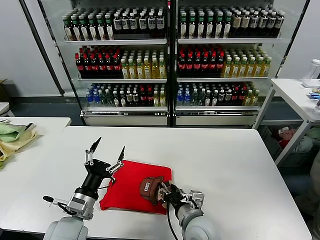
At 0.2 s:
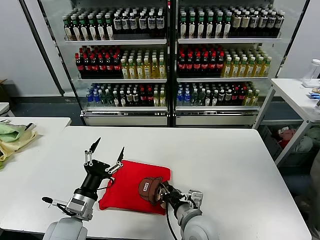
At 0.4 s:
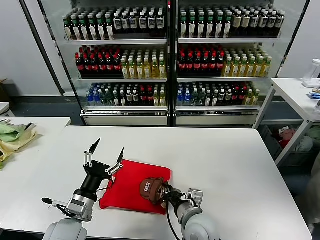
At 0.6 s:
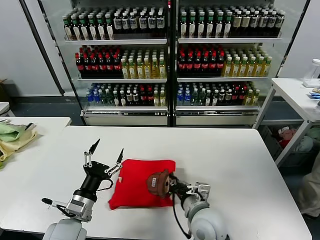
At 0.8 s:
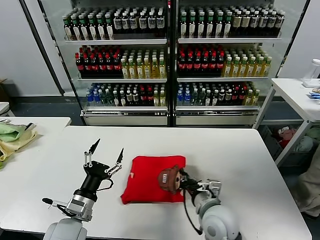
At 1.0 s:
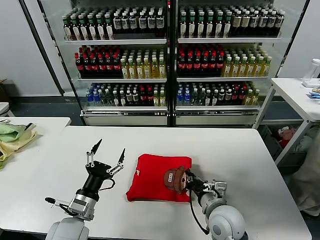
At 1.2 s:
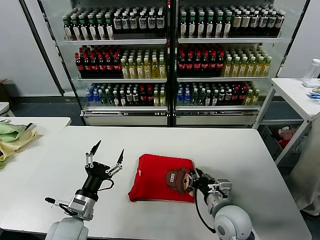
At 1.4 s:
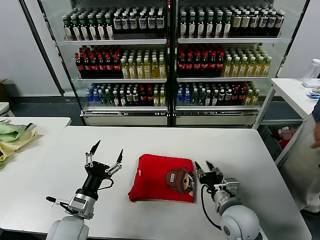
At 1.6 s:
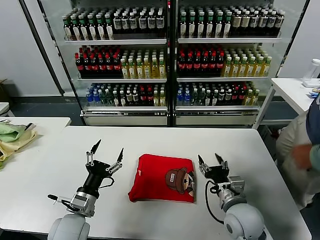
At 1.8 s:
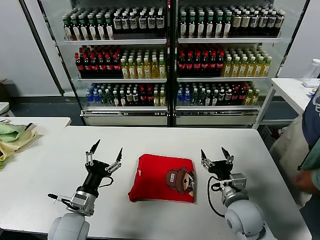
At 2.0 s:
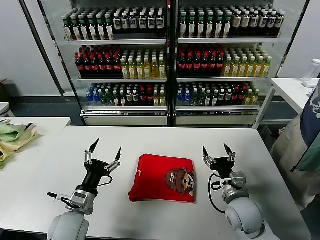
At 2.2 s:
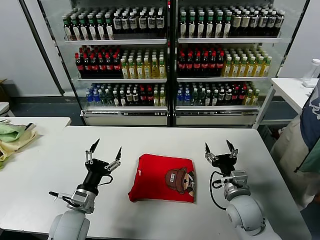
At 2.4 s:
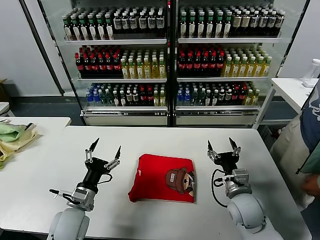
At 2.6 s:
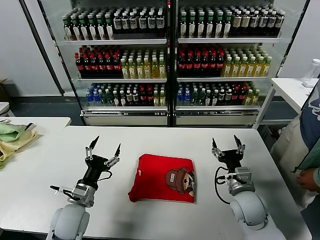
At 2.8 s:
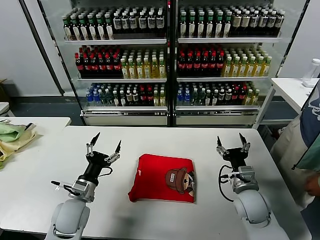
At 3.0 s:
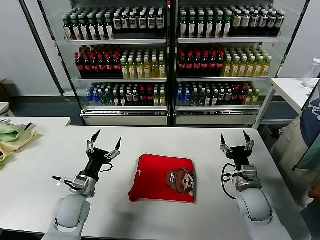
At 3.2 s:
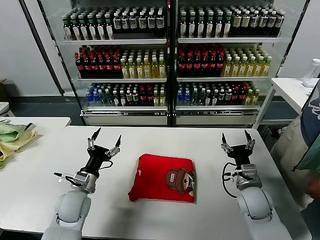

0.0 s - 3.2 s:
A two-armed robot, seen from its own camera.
Task of the whole recording: fold and organize the clothes.
0.0 s - 1.6 s: The right gripper moves to the right, some 10 cm, and closes, then reopens.
1.6 s - 3.2 s: The left gripper heads forward, covering approximately 10 cm. Meanwhile the right gripper shifts roughly 10 cm to the right and forward.

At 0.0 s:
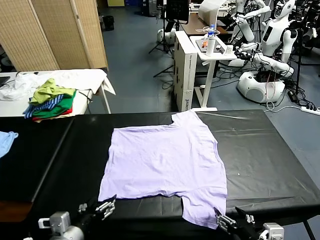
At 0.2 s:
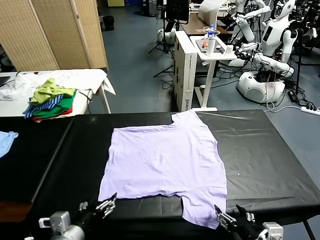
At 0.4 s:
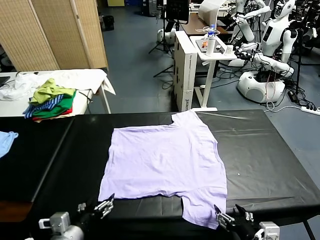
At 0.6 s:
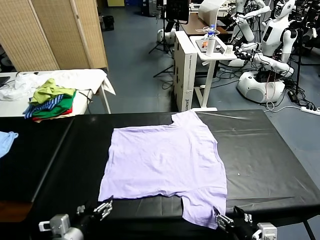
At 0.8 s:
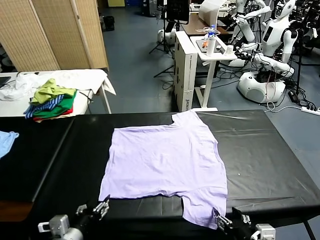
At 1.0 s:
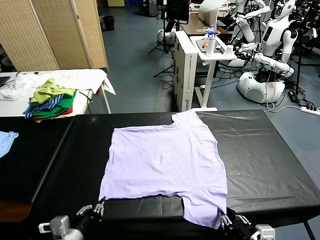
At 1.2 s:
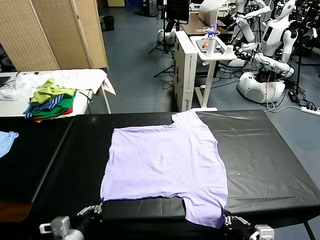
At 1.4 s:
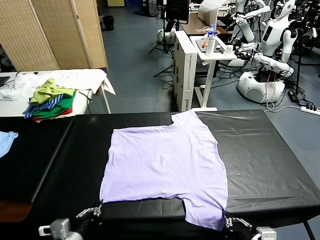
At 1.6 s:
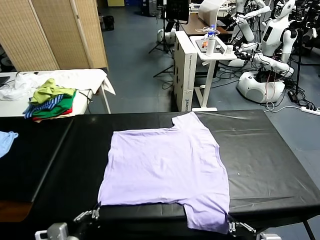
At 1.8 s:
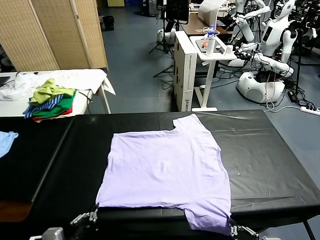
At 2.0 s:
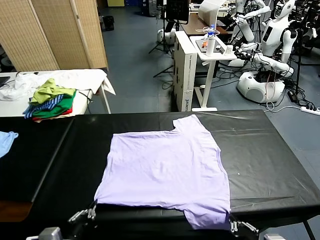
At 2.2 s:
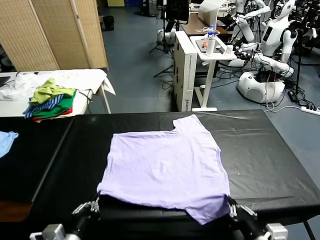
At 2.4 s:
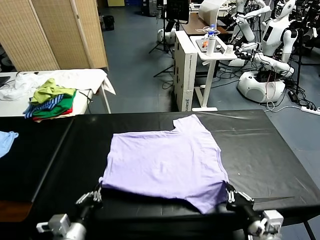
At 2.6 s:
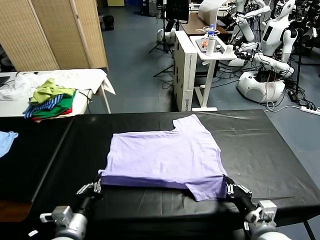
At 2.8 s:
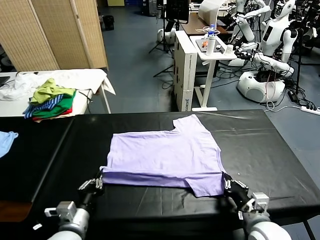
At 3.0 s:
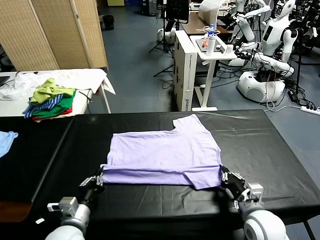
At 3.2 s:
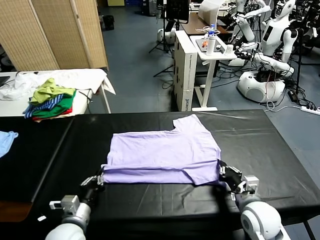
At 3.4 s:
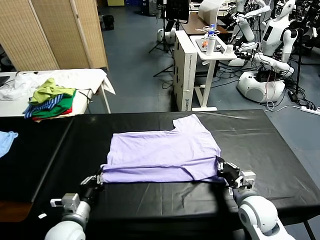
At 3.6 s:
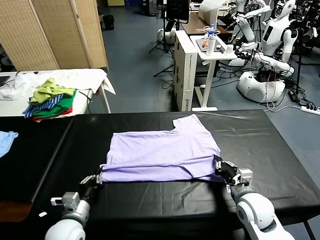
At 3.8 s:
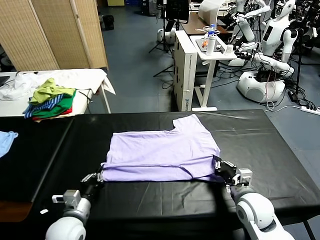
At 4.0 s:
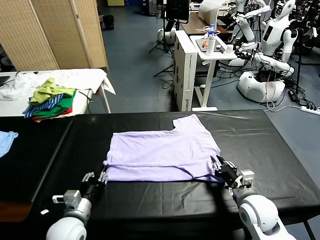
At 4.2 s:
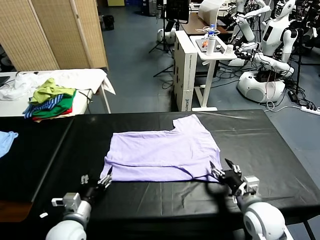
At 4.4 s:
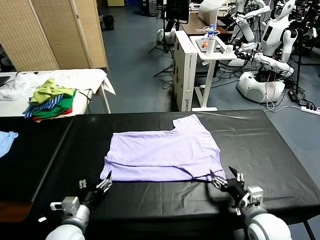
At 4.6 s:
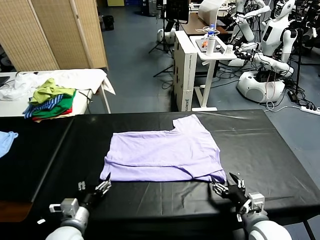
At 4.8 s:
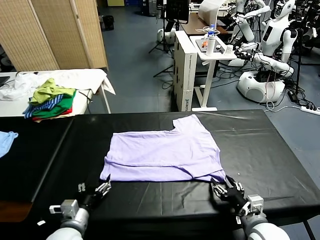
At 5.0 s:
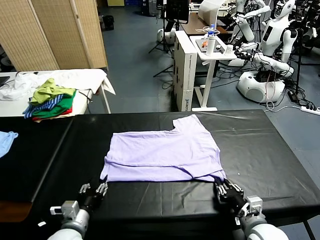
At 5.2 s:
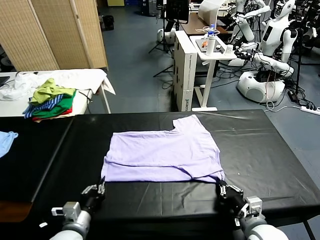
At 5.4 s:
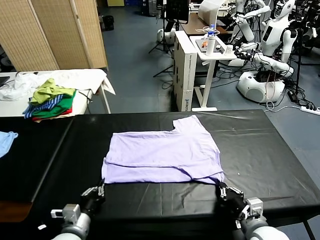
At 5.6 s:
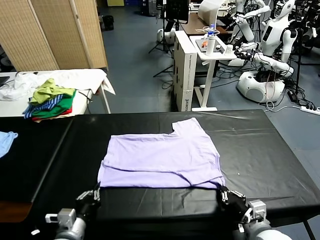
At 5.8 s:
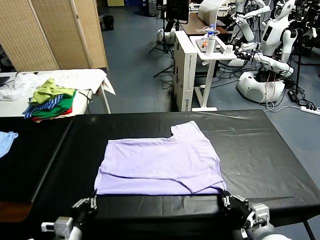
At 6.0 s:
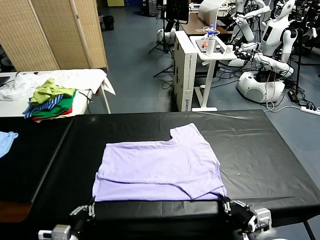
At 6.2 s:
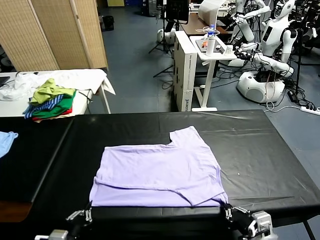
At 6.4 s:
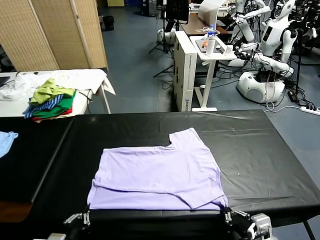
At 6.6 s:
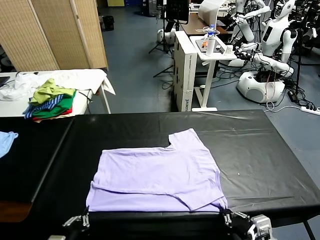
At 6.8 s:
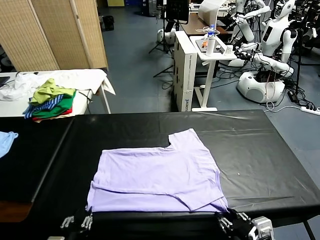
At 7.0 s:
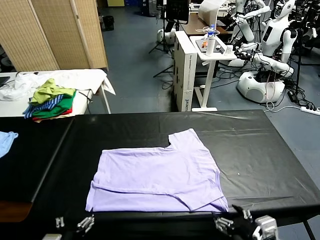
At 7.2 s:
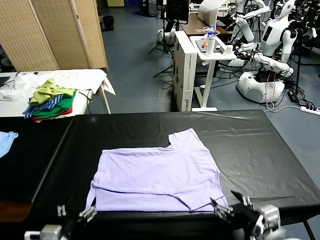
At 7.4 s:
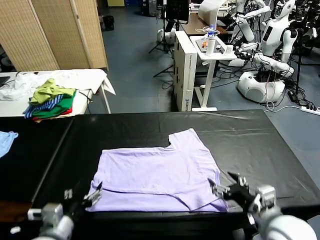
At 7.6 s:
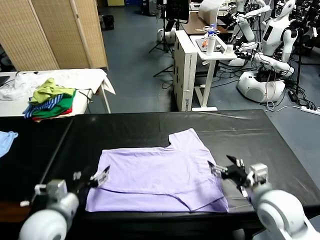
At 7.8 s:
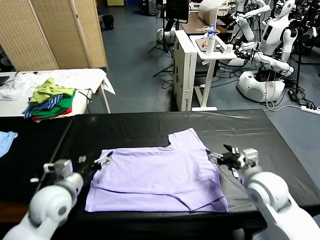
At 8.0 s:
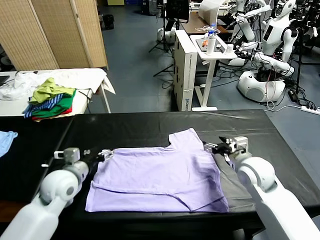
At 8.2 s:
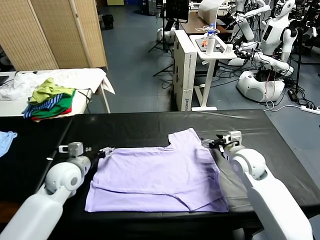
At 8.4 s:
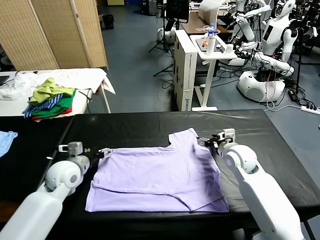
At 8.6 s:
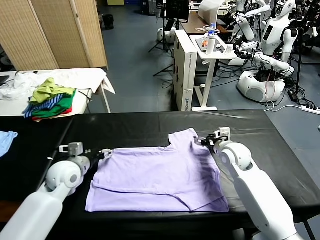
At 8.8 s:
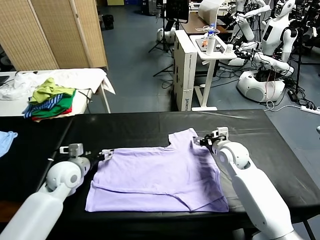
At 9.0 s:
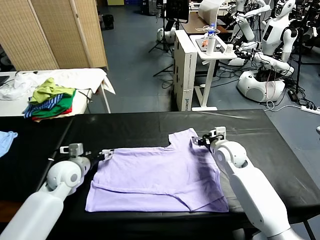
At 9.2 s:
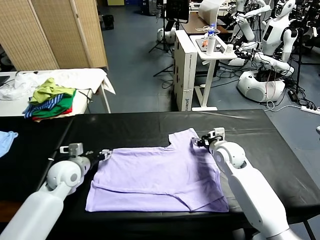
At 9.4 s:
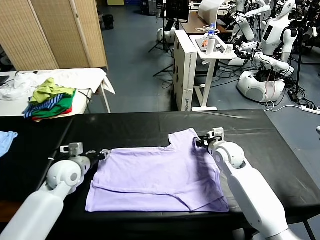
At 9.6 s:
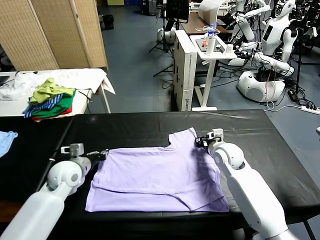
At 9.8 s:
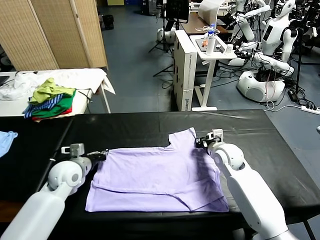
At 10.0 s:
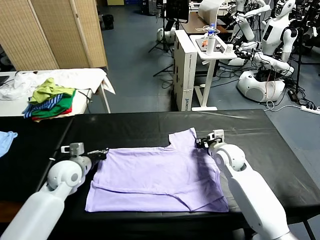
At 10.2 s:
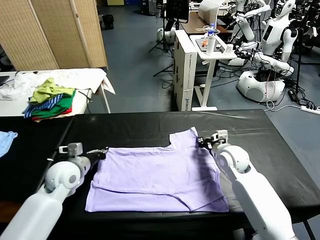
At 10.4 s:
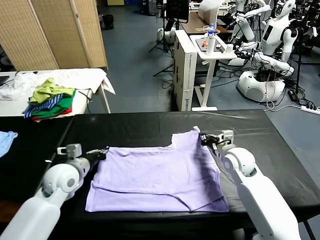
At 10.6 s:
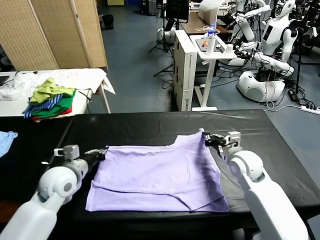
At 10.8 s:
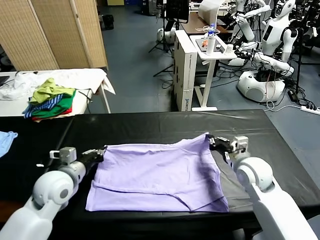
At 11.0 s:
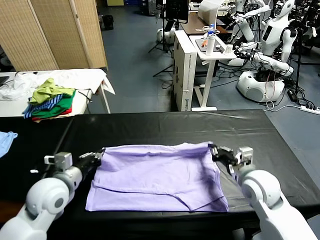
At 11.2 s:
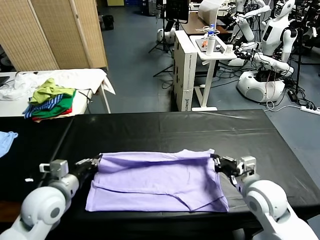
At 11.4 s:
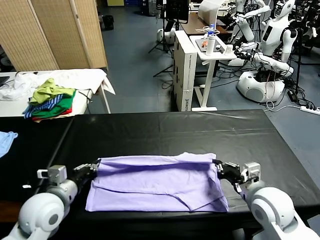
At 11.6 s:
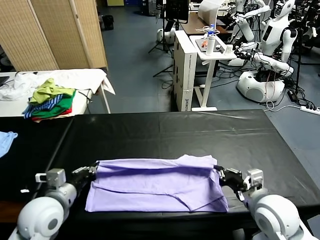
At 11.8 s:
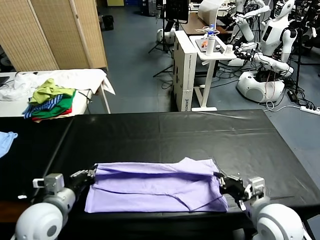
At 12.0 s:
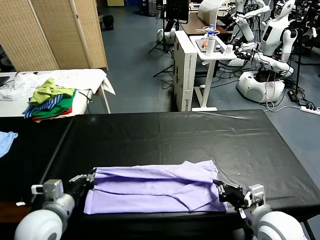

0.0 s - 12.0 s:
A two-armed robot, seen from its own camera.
Task of the whole recording: fold and organize the clothes.
Step, 0.0 s - 1.4 s: use both grippers simultaneously to clamp the lower edge of the clothing fabric.
Step, 1.8 s - 4.0 s: use both grippers to drag the lower edge of the fabric forward and fold it over the upper edge.
Step, 4.2 s - 6.8 s: Drag the clothes downward with both gripper.
Step, 7.2 s - 10.0 s: use both grippers simultaneously to clamp the upper edge of the clothing fabric.
1.6 s - 3.0 s: The right gripper shifts approximately 20 cm forward. Meanwhile the left gripper goes about 10 cm forward.
3.0 s - 4.4 s: The left gripper opens up. The right gripper moves backward, roughly 5 cm, and opens its fingers.
4.4 s - 6.0 s: Both grippers move backward, some 5 cm. The left gripper closes its fingers, while the right gripper closes up.
6.0 s - 7.6 s: The left gripper is displaced forward and upward by approximately 15 cm, and opens its fingers; the right gripper moves forward, roughly 20 cm, and opens.
7.6 s - 9.0 s: The right gripper shifts approximately 15 cm forward and downward, and closes up. The left gripper shifts some 15 cm forward.
9.0 s - 10.4 s: The right gripper heads backward, covering roughly 5 cm, and closes up. The left gripper closes its fingers.
10.4 s - 12.0 s: Both grippers move backward, approximately 15 cm.

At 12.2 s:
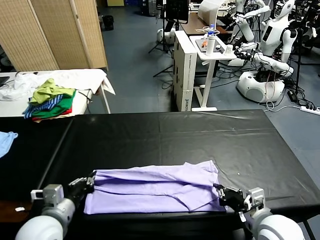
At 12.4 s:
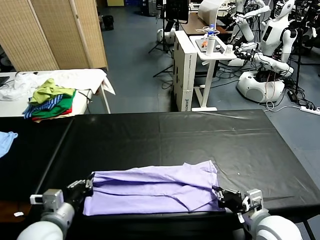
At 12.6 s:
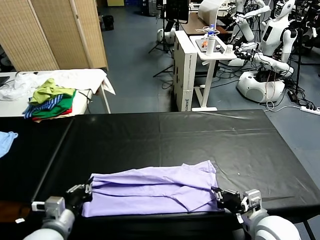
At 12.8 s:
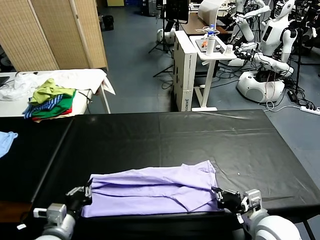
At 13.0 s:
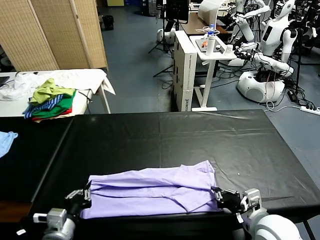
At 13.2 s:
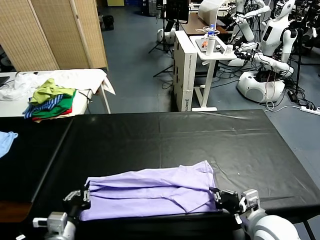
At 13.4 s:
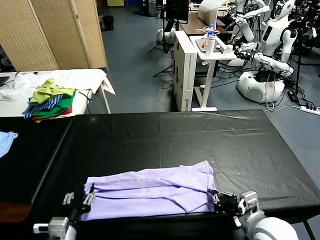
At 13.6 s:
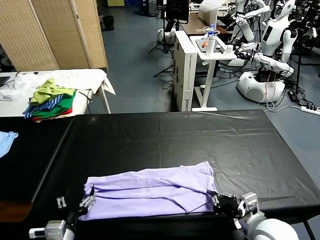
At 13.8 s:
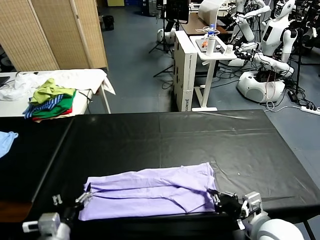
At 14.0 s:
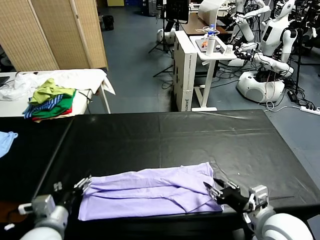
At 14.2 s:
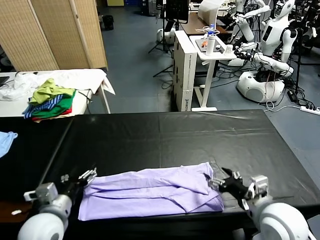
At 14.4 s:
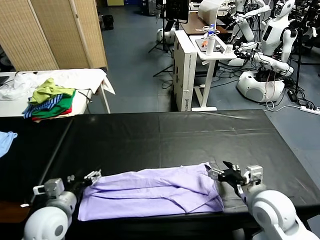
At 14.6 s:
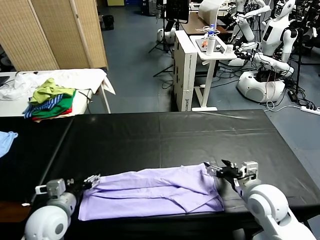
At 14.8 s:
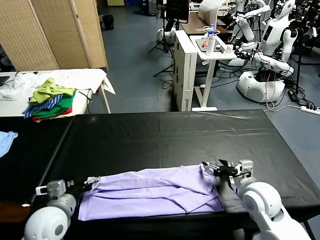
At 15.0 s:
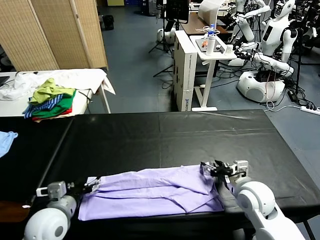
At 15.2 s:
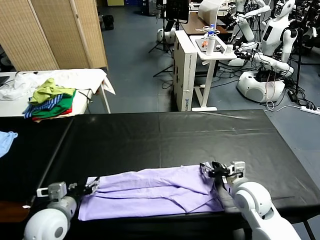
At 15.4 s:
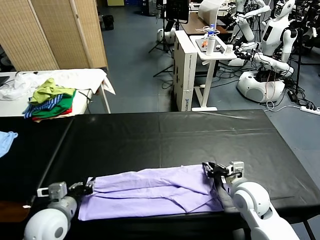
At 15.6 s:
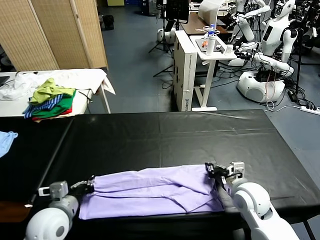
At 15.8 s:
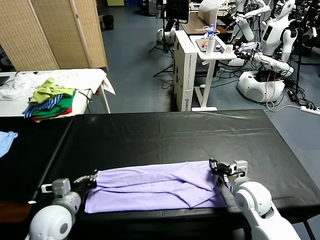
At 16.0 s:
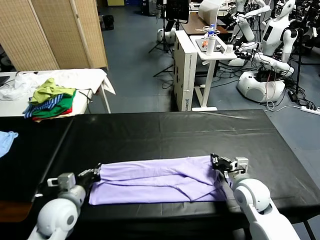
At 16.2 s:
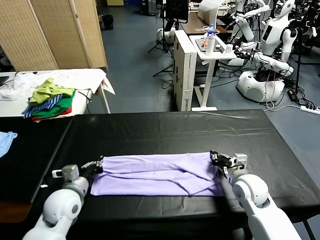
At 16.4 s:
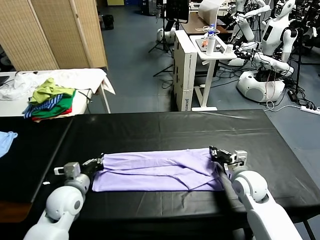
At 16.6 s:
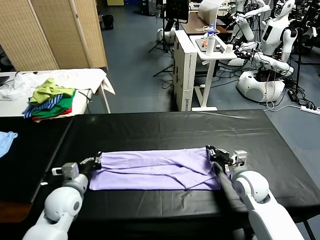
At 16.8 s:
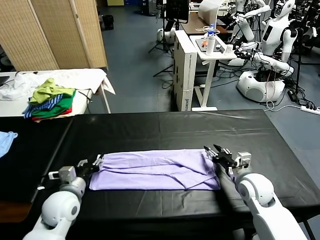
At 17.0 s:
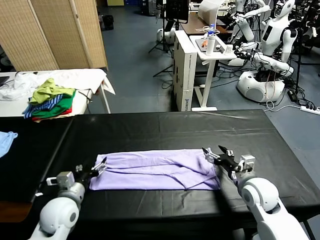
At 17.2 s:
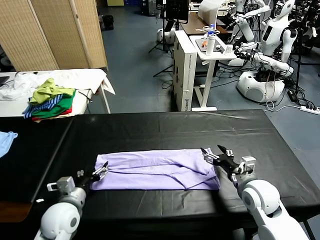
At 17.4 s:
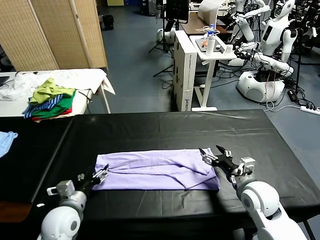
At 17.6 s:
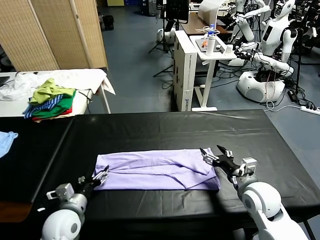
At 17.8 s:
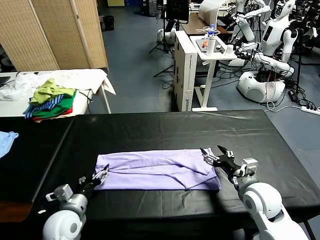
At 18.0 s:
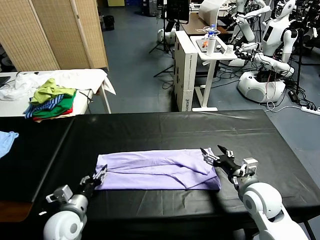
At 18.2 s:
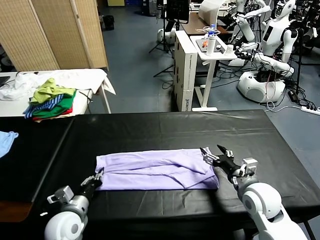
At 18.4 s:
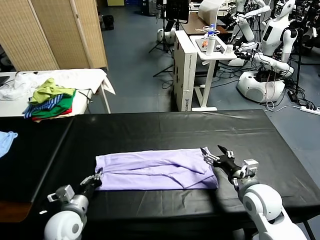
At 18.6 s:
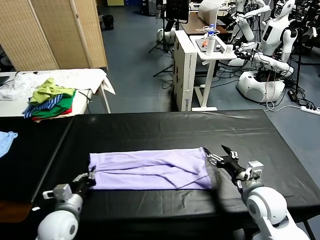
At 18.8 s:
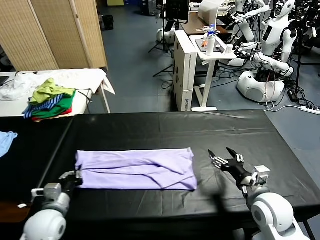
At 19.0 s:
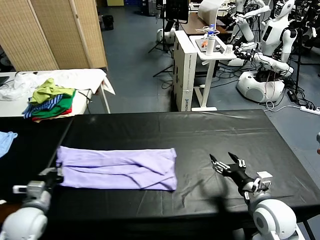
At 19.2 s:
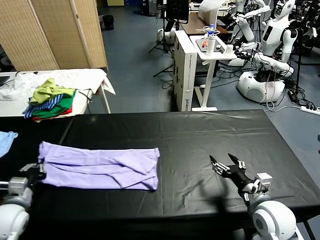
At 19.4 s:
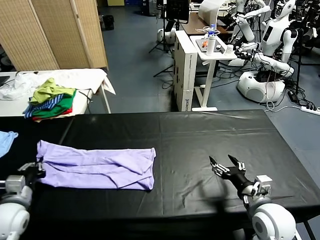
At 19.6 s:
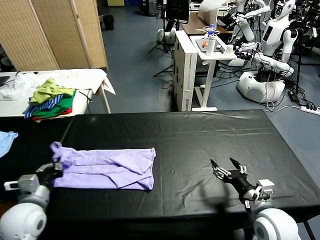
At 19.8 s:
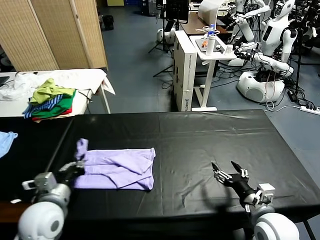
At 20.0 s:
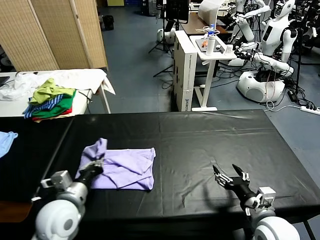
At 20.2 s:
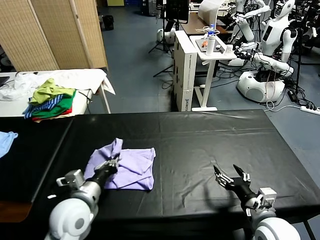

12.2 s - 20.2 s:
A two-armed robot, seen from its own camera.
Task of the whole recording: fold and organize the clothes.
Step, 14.2 s - 18.8 s: use the left gripper to clamp the left edge of the fabric.
12.2 s - 13.8 s: The right gripper opens up; the left gripper opens its fingers.
13.8 s - 15.4 s: The left gripper goes approximately 10 cm forward, and closes up; the right gripper heads forward and downward, covering approximately 15 cm, and closes up.
15.4 s - 17.0 s: The left gripper opens its fingers; the right gripper opens its fingers.
17.0 s - 18.6 s: The left gripper closes.
18.6 s - 20.2 s: The right gripper is displaced backward by roughly 5 cm, while the left gripper goes roughly 5 cm upward, and moves approximately 15 cm to the left and comes back.
